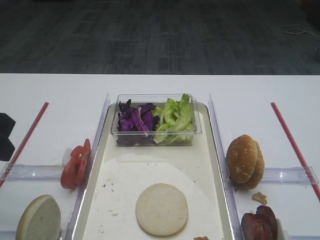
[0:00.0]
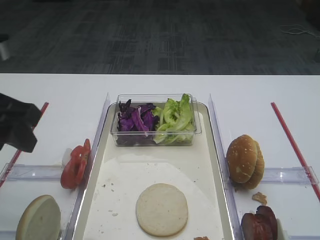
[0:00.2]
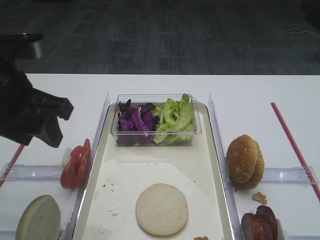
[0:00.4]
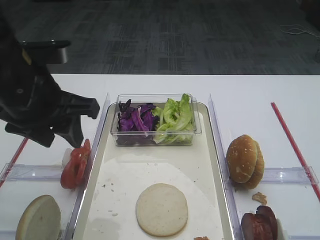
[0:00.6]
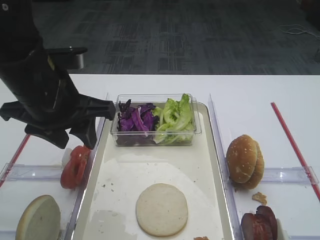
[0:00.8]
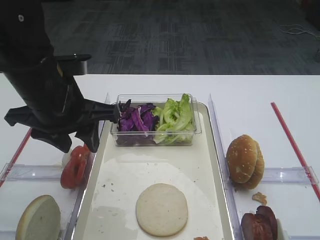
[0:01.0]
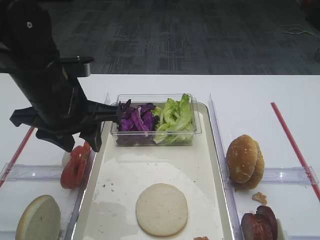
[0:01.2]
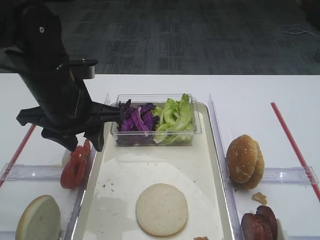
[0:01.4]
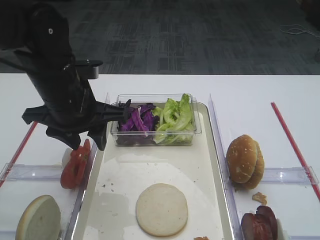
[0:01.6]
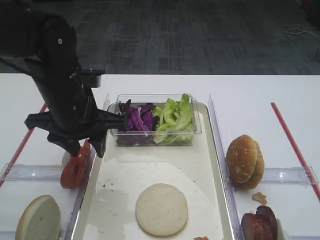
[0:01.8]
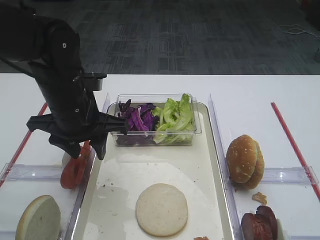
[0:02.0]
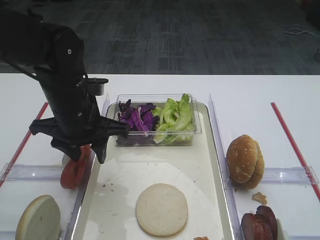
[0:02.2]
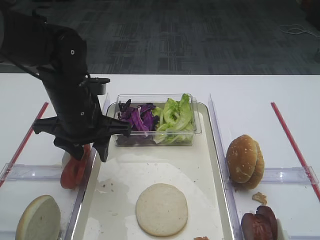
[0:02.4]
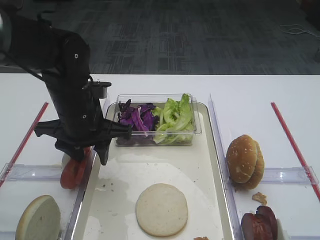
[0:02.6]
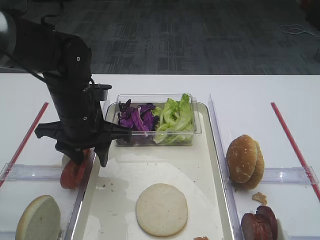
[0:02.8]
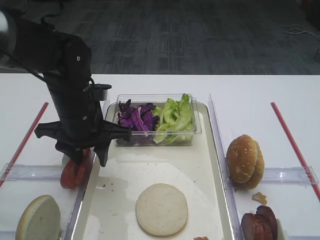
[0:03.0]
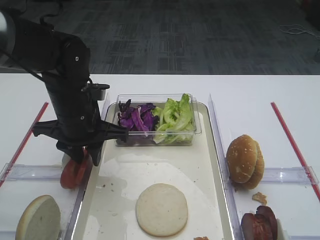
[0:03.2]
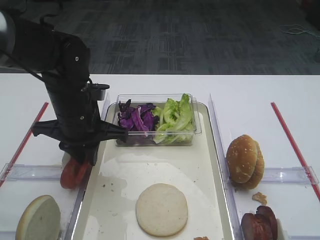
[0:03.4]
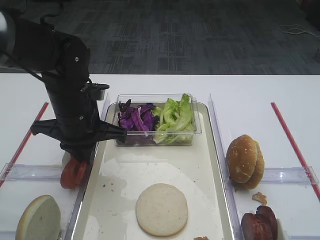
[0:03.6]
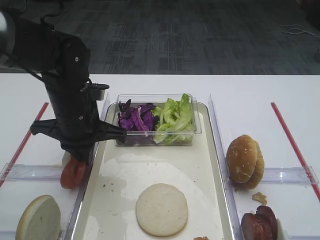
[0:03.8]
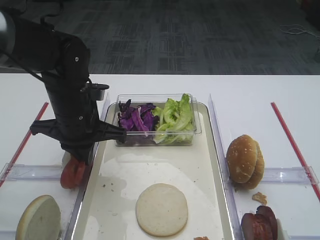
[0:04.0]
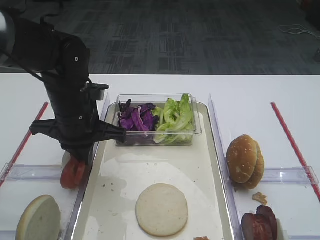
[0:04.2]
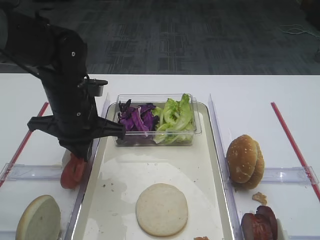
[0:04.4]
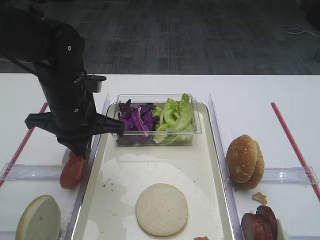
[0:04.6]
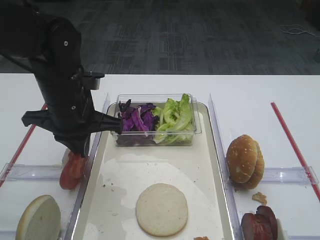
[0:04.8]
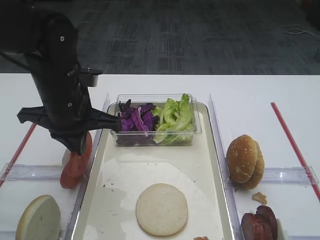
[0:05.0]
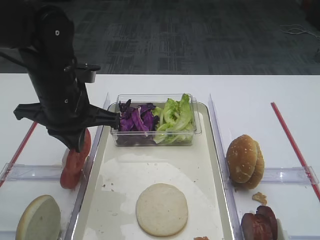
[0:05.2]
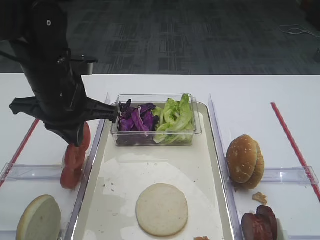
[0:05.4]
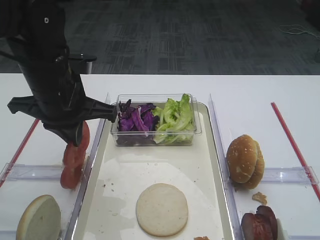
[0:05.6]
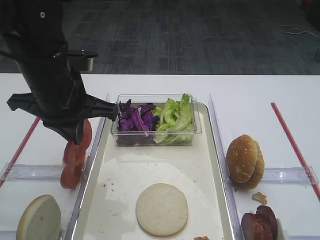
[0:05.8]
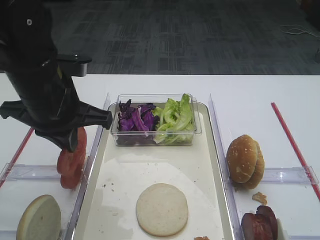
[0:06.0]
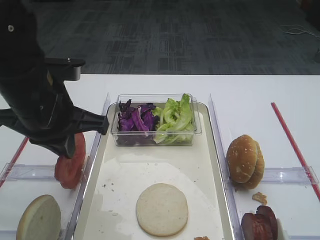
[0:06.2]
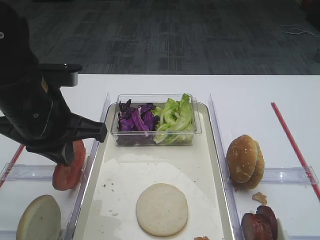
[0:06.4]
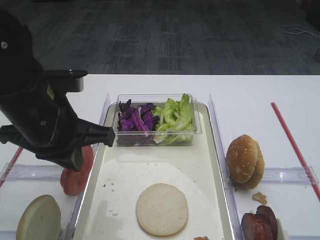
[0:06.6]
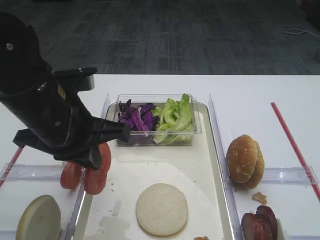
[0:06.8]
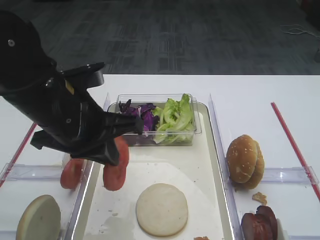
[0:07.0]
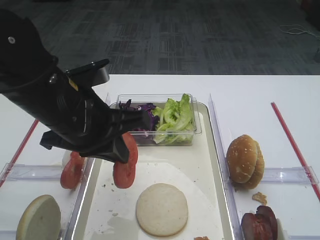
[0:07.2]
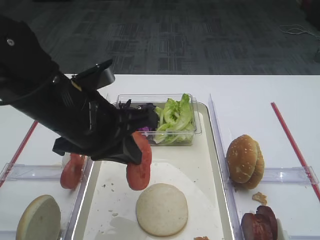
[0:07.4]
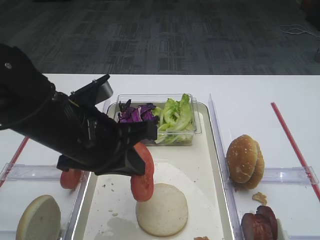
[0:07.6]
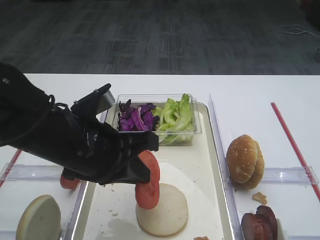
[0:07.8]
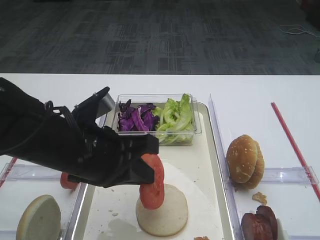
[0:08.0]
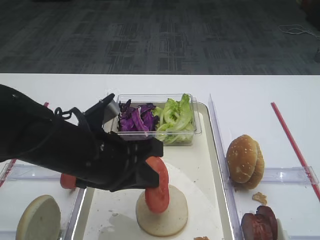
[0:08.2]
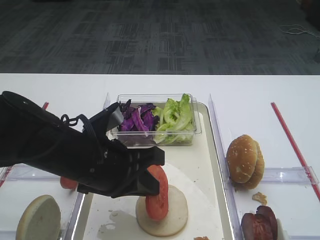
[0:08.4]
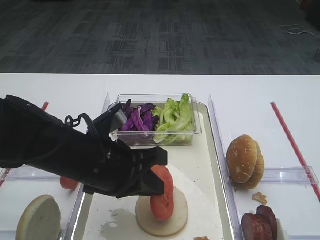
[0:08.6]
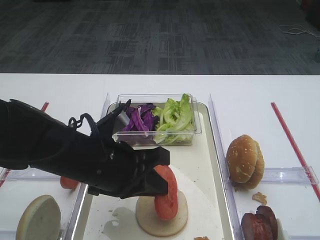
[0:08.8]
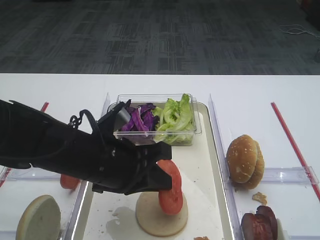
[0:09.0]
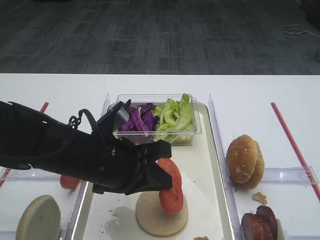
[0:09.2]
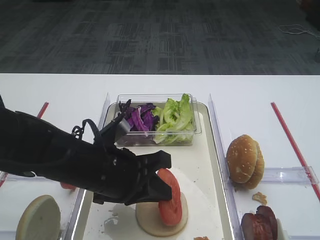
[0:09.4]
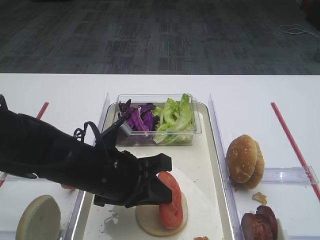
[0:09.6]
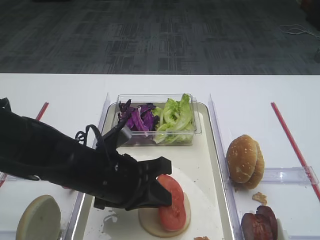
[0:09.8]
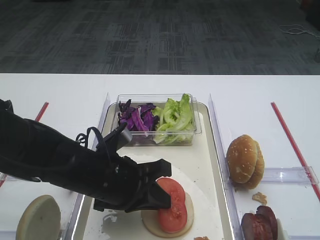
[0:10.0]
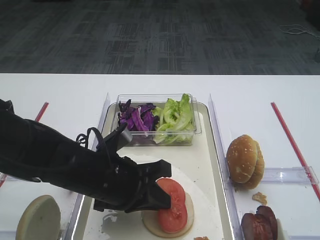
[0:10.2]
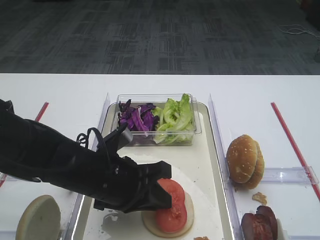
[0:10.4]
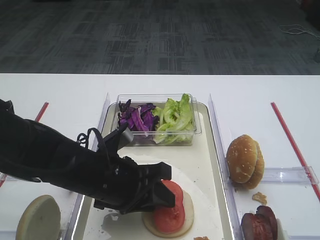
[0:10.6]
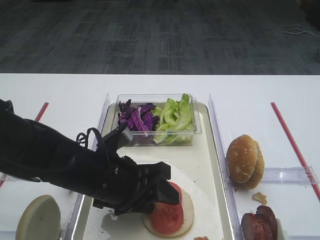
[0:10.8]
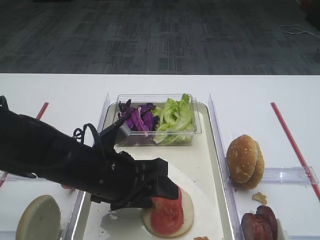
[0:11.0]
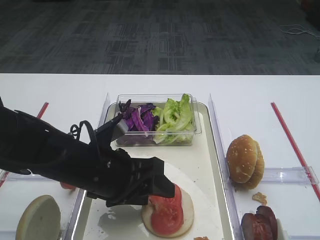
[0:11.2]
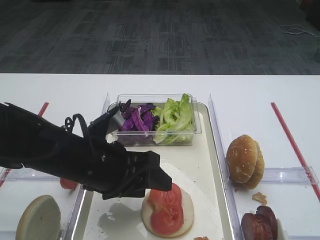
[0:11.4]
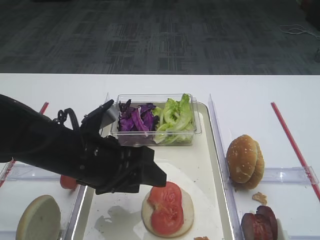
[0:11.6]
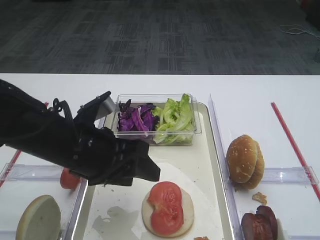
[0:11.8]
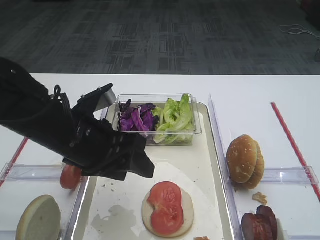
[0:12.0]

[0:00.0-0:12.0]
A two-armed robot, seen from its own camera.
Step, 0.0 to 6.4 s: Pick up the tomato slice with the left gripper.
Step, 6.6 to 11.6 s: Place the tomato slice on the lettuce leaf with the left gripper.
0.0 to 1.6 s: The left gripper shifts roughly 15 cm to the right, forward and downward.
1.6 to 3.0 s: The left gripper ends up roughly 5 cm from where it was.
3.0 to 4.4 s: The left gripper closes its fingers.
4.4 to 6.0 s: The left gripper travels upward by approximately 5 cm.
6.0 to 7.6 s: The left gripper heads backward, covering some 5 cm.
7.6 to 9.0 s: The left gripper heads downward, covering roughly 5 cm.
9.0 to 10.4 s: There are only small adjustments of the grippers.
10.4 to 12.0 s: The left gripper travels upward by about 5 cm, and opens up.

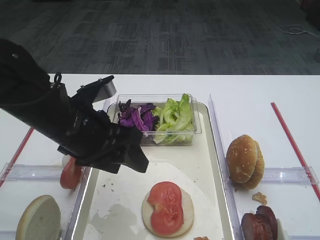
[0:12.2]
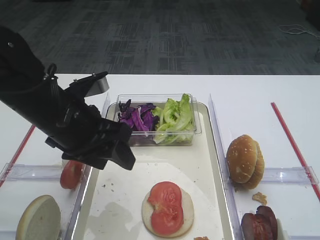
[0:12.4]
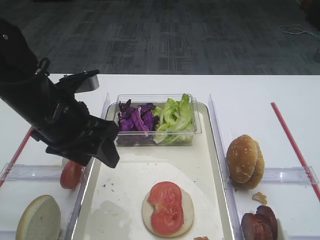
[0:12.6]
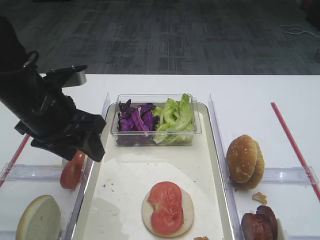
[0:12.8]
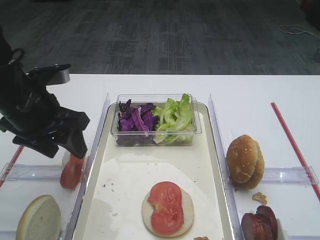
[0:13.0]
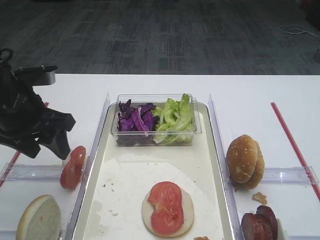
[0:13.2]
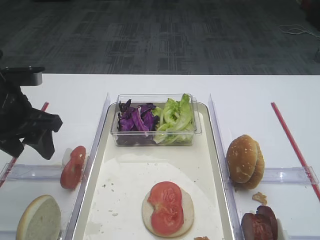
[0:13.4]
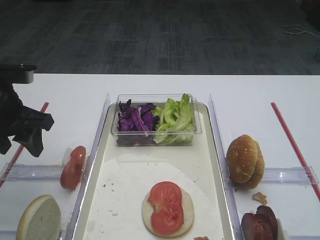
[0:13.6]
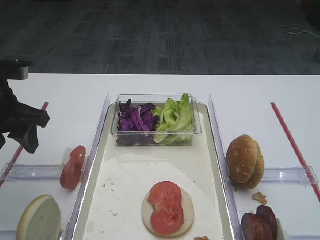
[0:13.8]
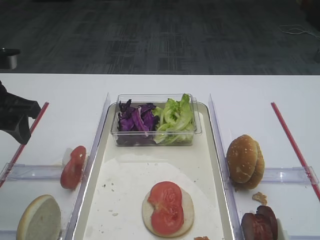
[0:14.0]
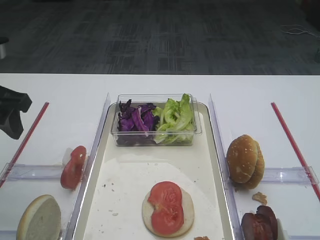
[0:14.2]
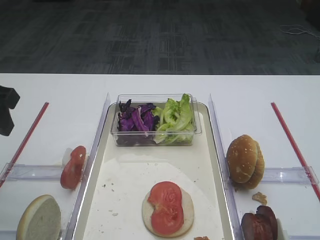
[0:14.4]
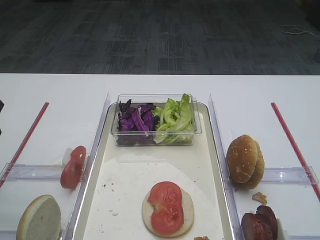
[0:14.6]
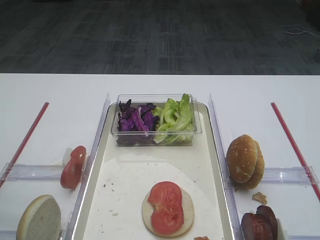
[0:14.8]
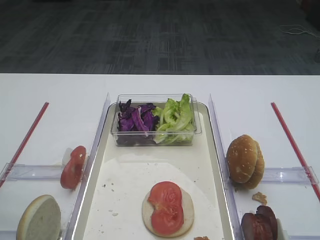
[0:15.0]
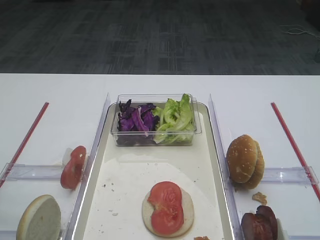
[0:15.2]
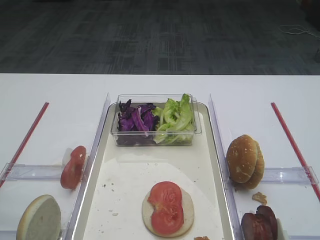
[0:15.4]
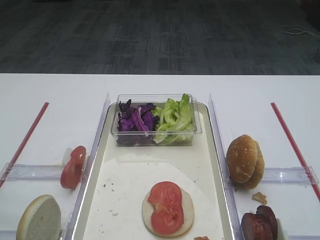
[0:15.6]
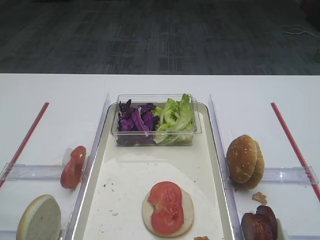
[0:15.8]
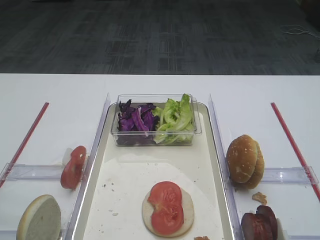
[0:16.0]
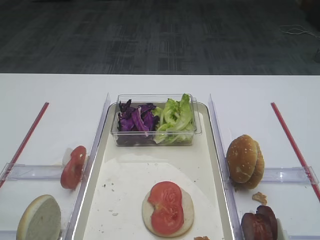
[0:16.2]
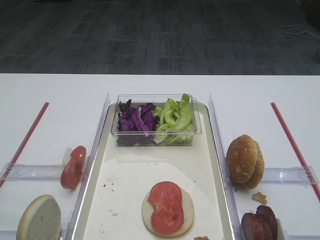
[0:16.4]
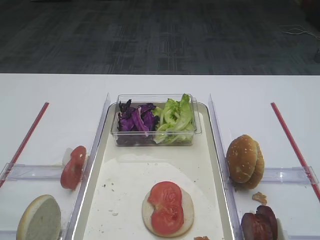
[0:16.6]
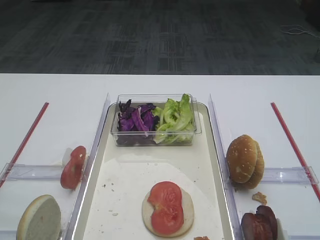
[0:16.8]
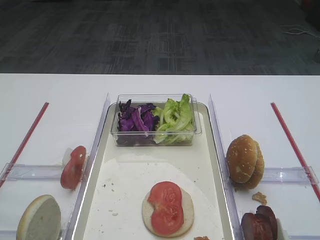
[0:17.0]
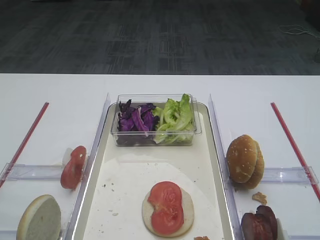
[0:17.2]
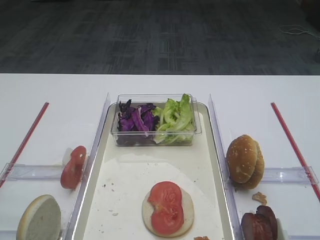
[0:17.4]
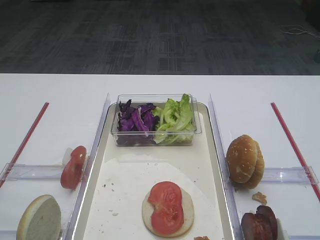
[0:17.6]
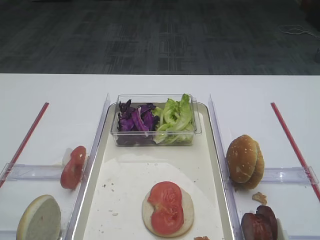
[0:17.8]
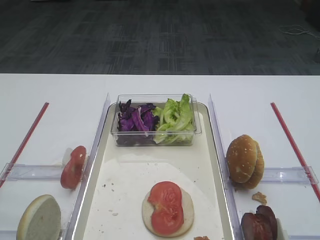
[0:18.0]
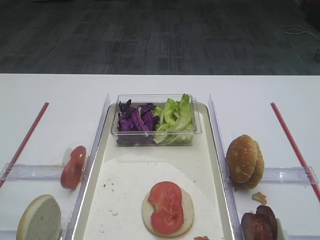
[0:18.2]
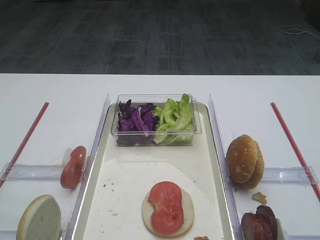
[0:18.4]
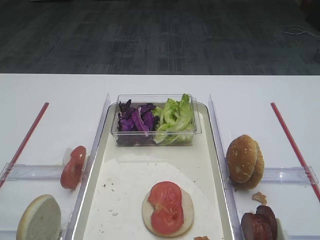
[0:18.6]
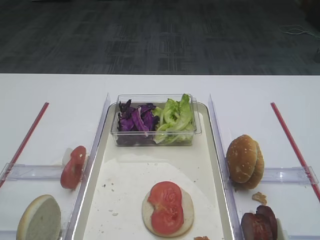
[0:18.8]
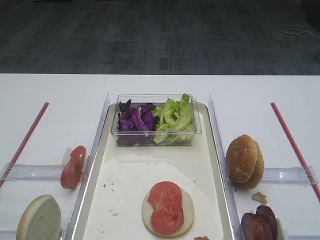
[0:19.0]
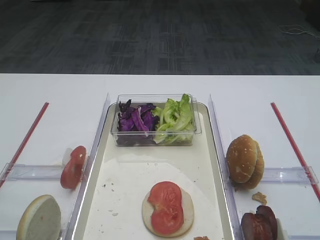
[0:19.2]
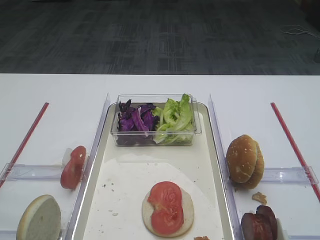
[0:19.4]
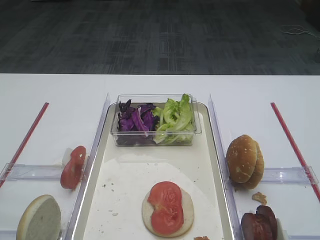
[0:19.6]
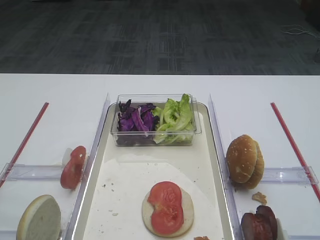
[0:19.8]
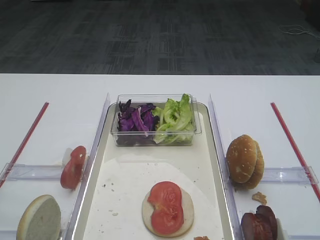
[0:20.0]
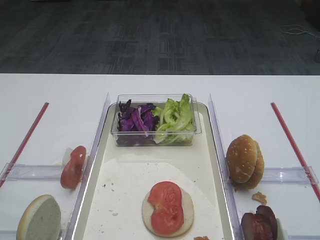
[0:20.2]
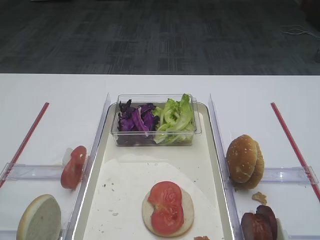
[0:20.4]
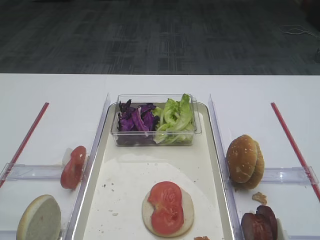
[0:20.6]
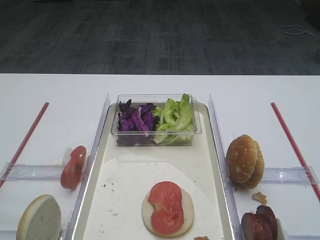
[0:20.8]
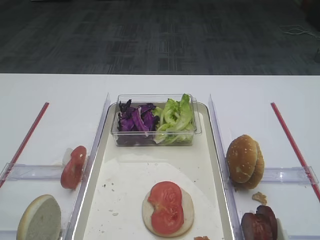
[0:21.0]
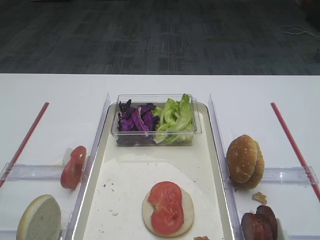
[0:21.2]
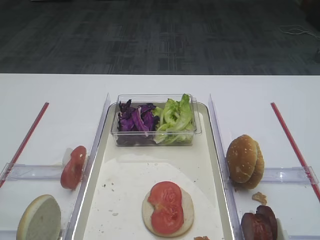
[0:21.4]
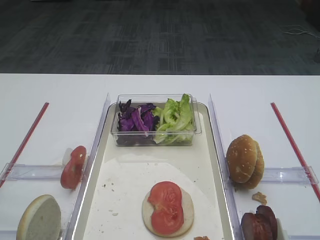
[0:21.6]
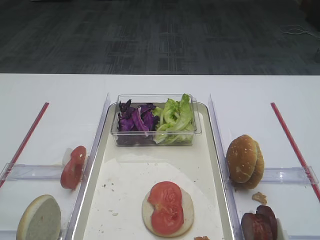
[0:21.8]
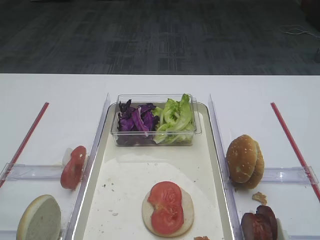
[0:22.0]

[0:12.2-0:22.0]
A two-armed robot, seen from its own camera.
12.2 to 13.6 s: The left gripper travels to the left by roughly 15 cm.
13.6 to 15.0 s: The left gripper heads backward and upward, covering some 15 cm.
17.8 to 22.0 s: Both grippers stay about where they are.

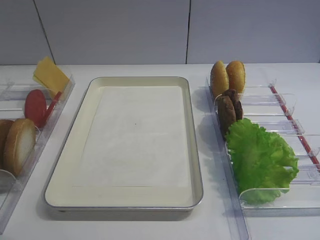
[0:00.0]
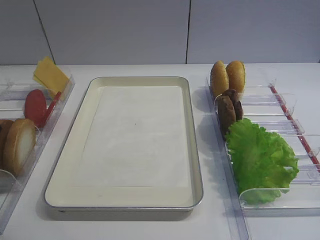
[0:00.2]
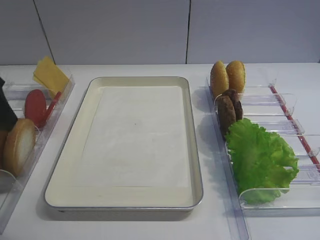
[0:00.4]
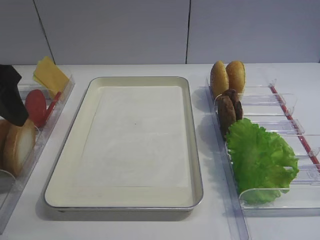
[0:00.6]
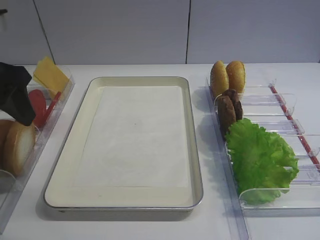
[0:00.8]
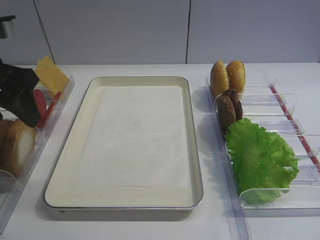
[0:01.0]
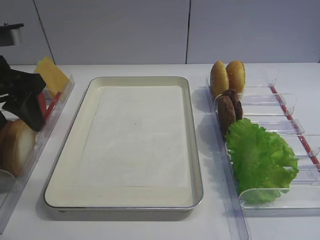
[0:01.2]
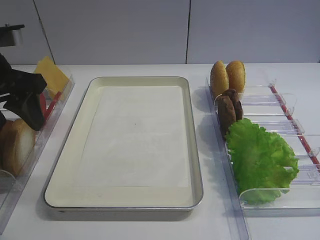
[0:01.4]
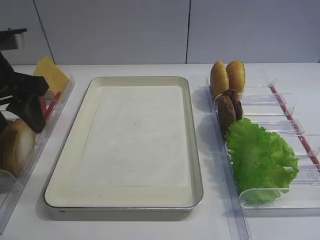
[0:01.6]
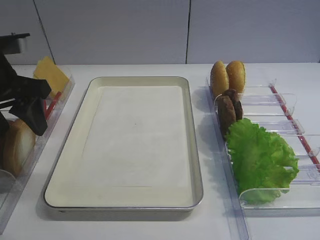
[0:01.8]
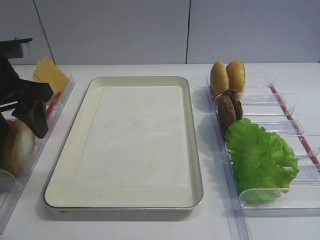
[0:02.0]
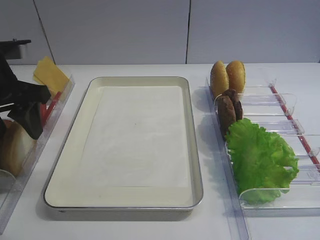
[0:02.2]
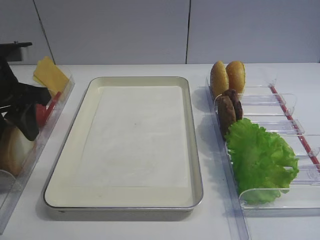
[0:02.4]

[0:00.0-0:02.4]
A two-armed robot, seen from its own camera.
0.0 to 1.2 s: The left gripper heads forward, covering approximately 15 cm.
1.2 to 2.4 s: The grippers make only small movements.
